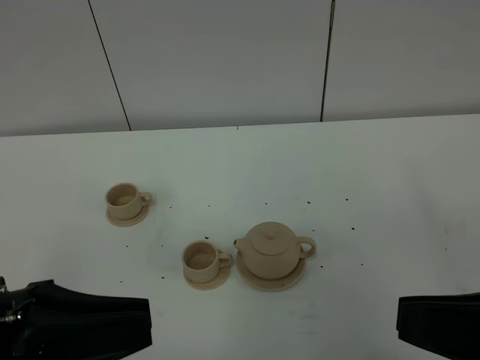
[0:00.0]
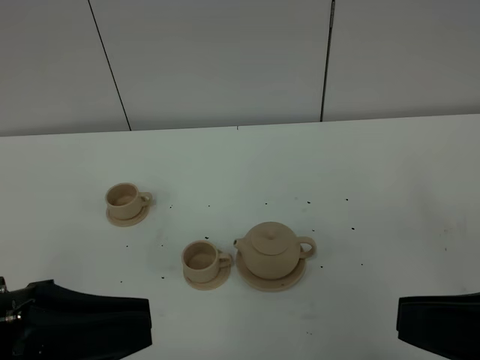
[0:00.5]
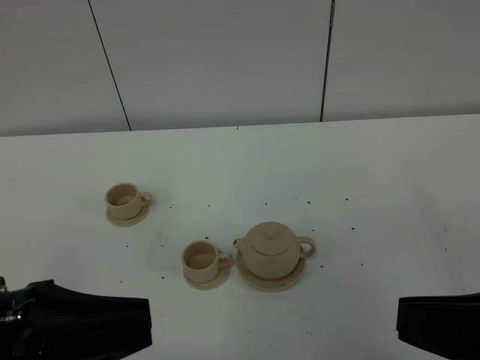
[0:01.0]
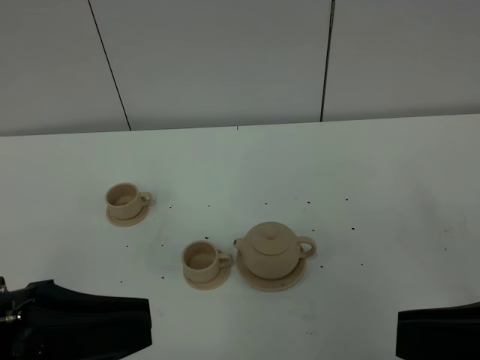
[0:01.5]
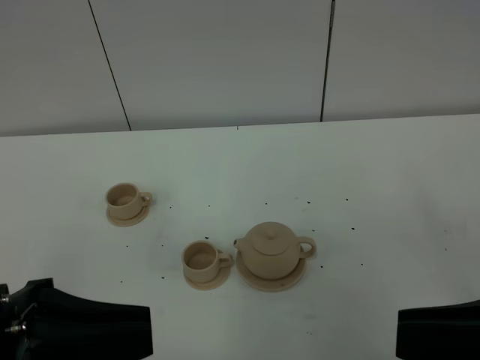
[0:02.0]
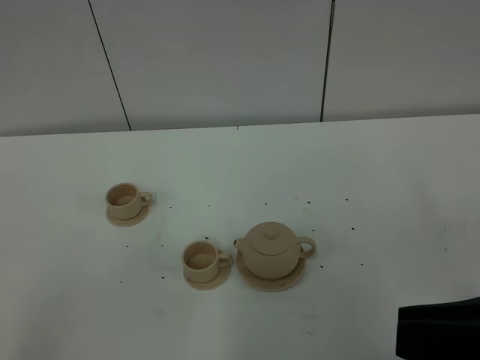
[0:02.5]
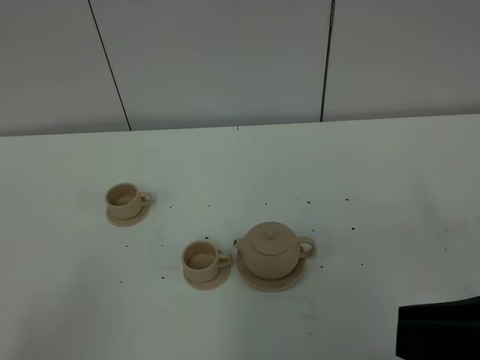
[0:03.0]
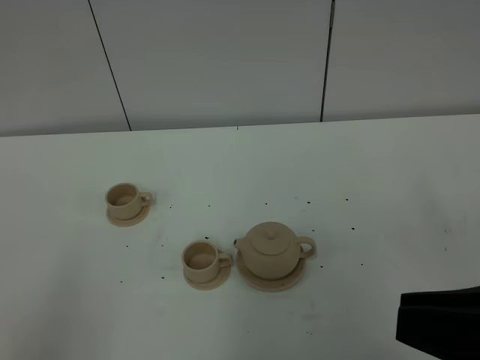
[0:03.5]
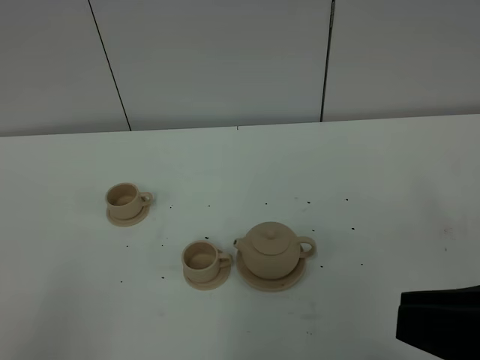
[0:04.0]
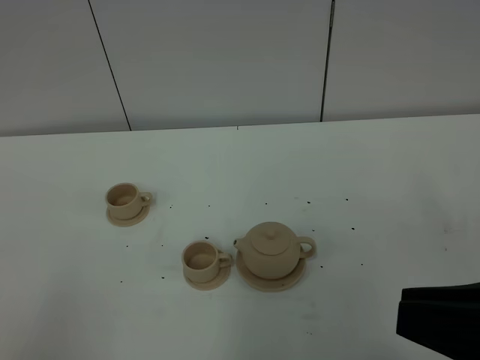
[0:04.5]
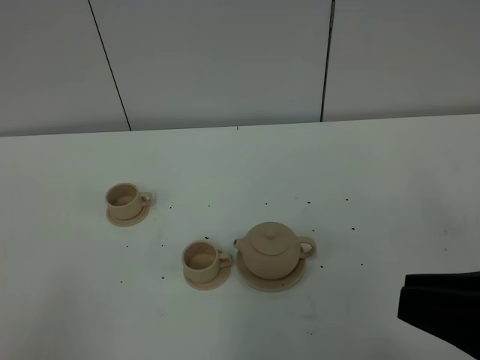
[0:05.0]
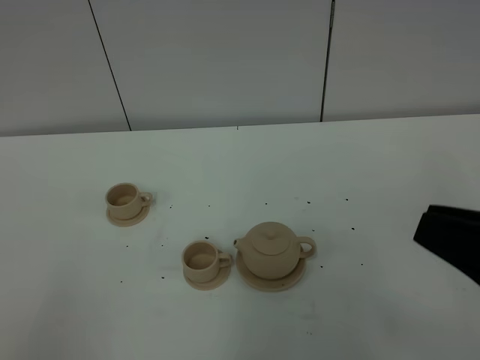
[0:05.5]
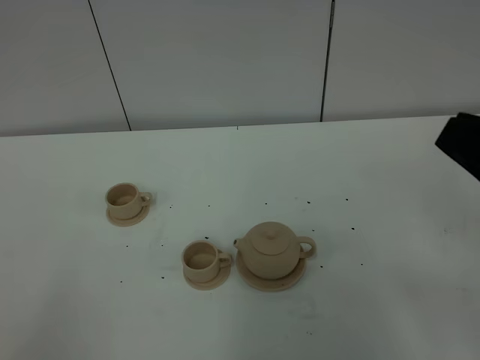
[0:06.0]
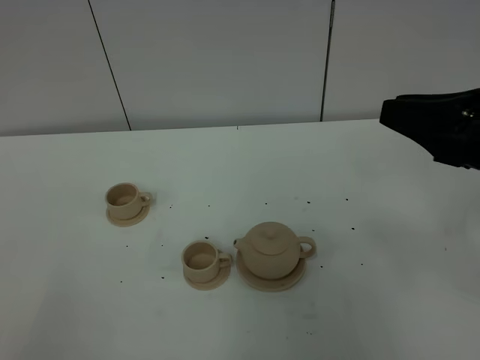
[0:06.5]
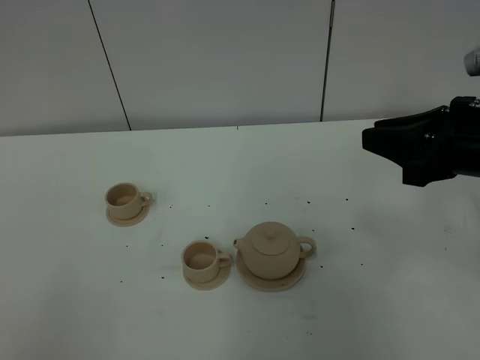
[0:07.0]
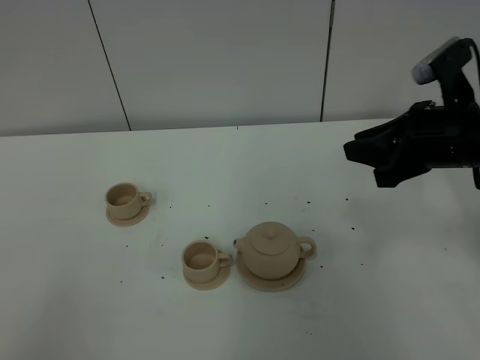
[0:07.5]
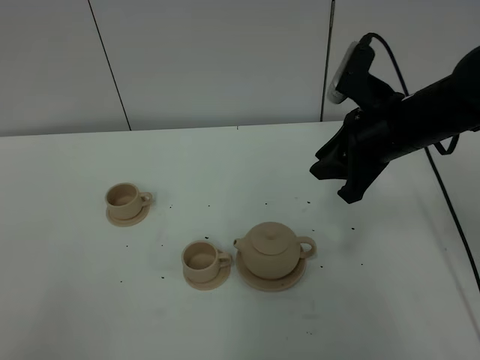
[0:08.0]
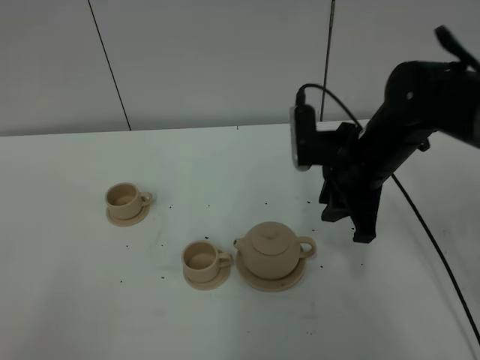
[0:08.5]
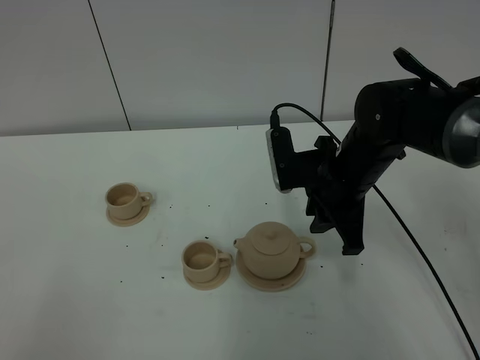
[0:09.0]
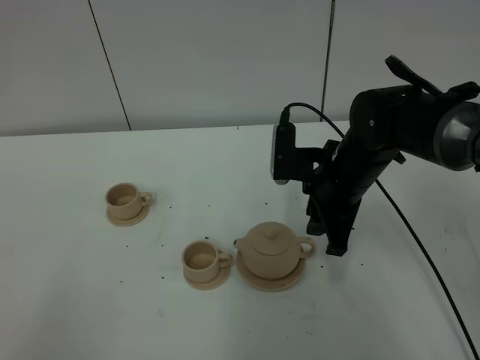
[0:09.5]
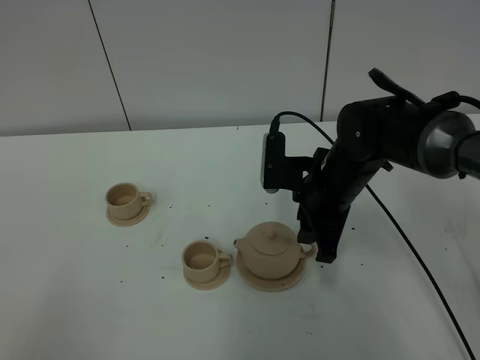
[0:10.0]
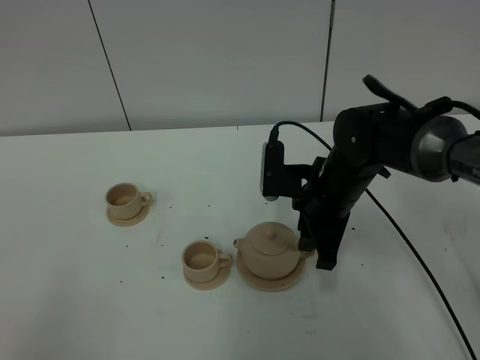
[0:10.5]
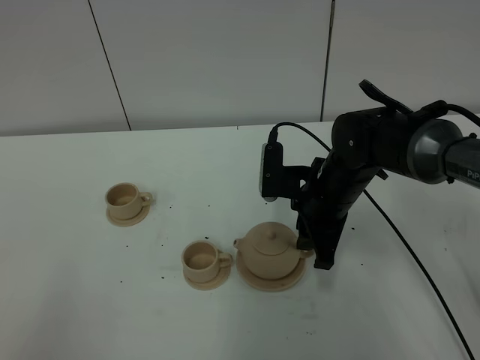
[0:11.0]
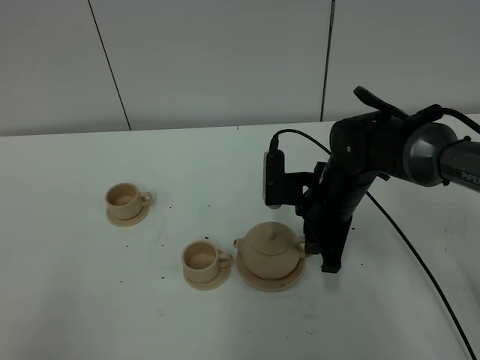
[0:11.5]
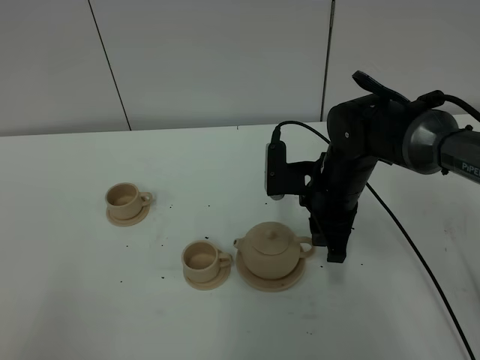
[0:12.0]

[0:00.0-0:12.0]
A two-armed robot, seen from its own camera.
Task of the whole recording: grasp the brown teapot and pour the tea into the two brown teacups one by one, put the brown teapot back in its original place.
0:00.0 to 0:02.0: The grippers stay close to where they were, moving slightly.
0:02.0 to 0:04.0: The left gripper travels backward and to the left by approximately 15 cm.
0:04.0 to 0:06.0: The right gripper heads forward, covering roughly 5 cm.
0:06.0 to 0:08.0: The right gripper moves forward and downward, about 25 cm.
0:08.0 to 0:10.0: The right gripper shifts roughly 10 cm downward and to the left.
0:10.0 to 0:12.0: The grippers move only a little.

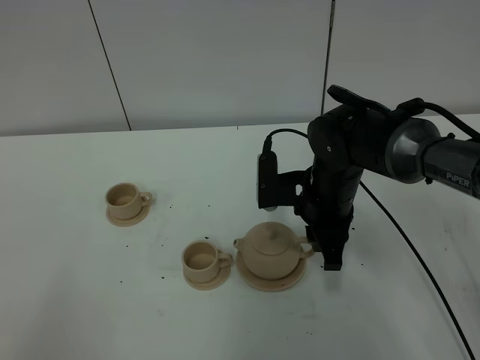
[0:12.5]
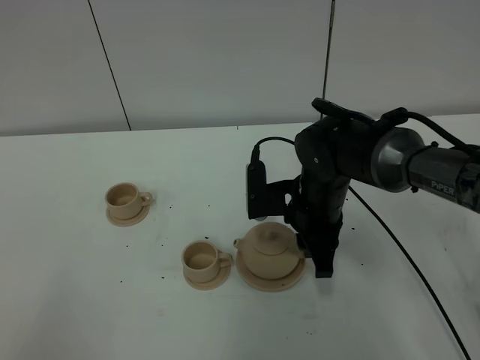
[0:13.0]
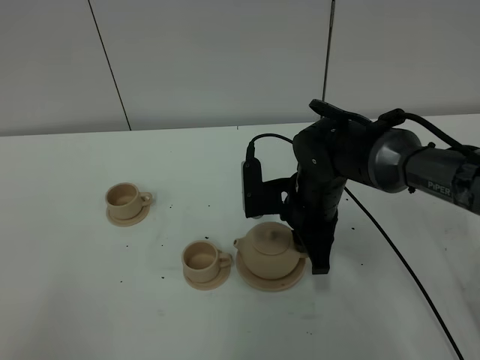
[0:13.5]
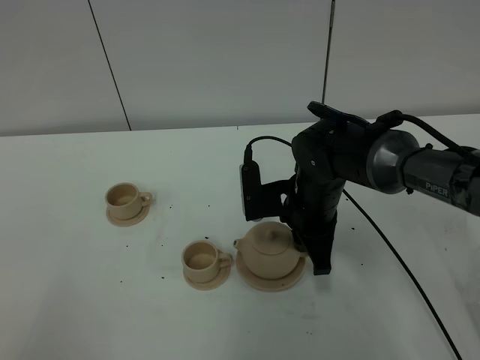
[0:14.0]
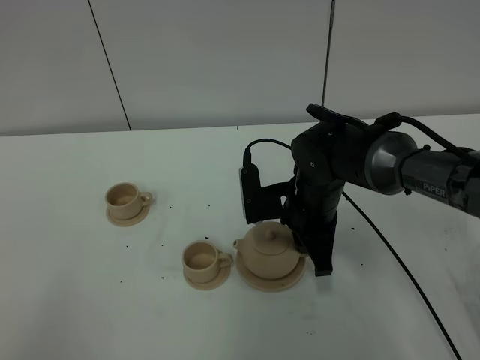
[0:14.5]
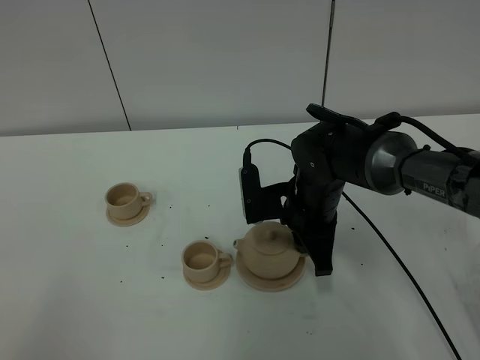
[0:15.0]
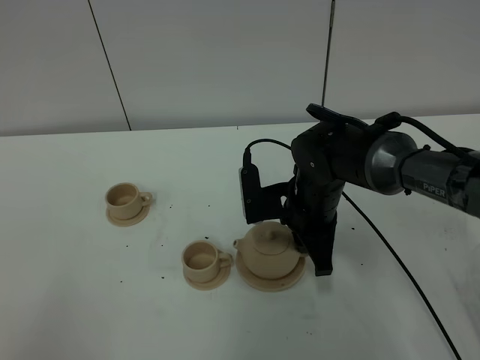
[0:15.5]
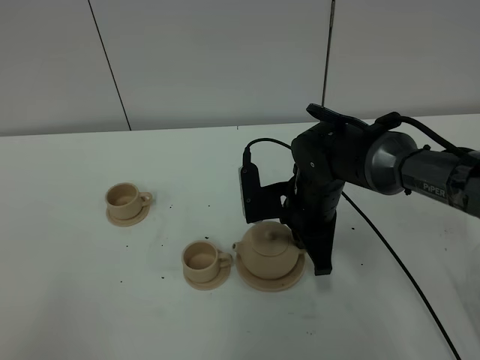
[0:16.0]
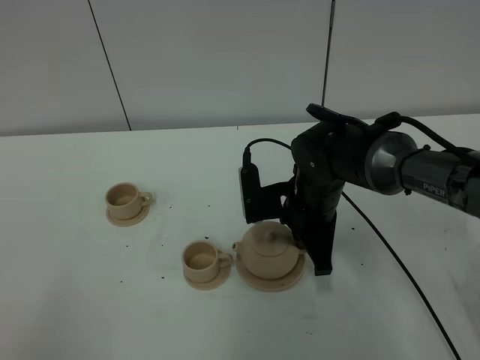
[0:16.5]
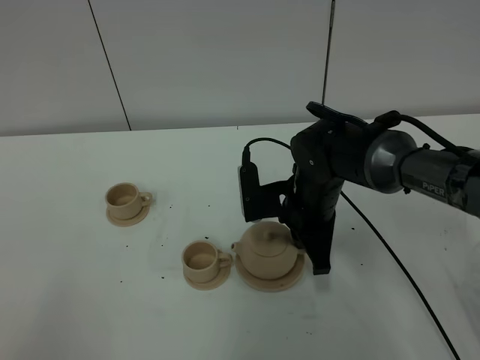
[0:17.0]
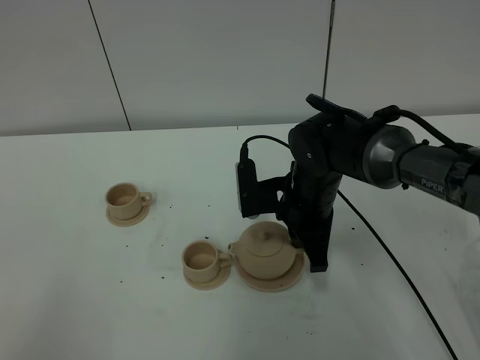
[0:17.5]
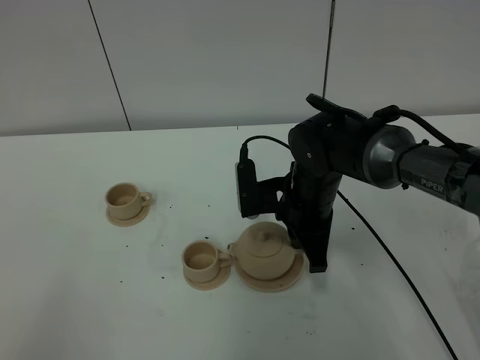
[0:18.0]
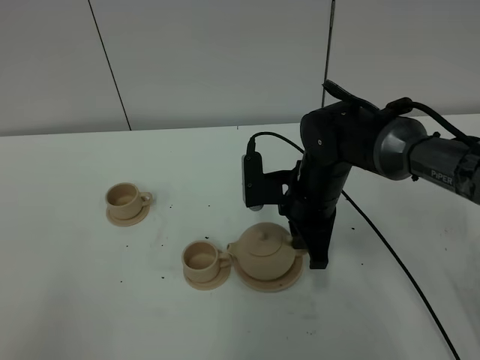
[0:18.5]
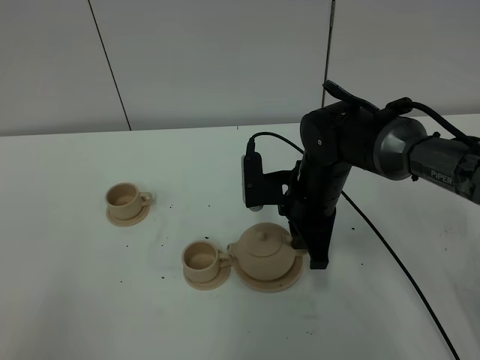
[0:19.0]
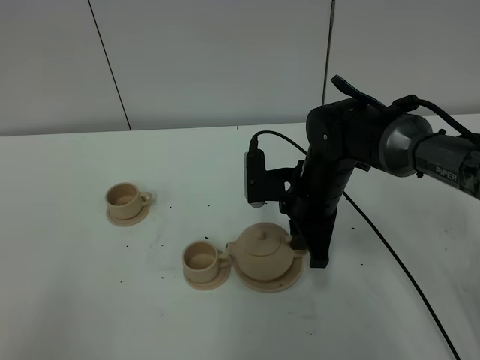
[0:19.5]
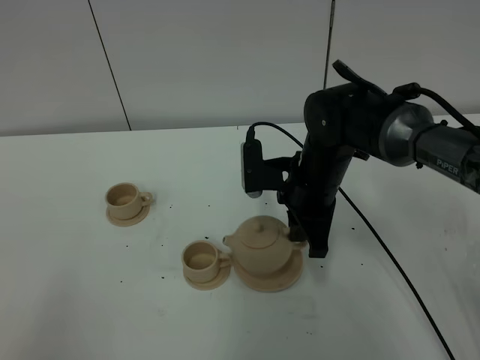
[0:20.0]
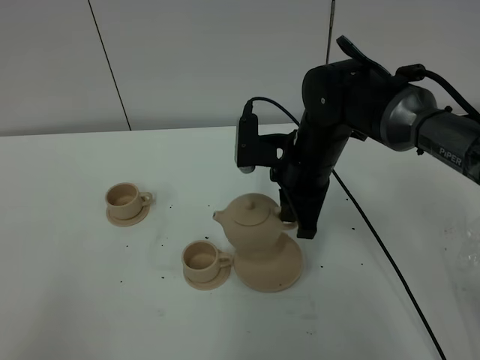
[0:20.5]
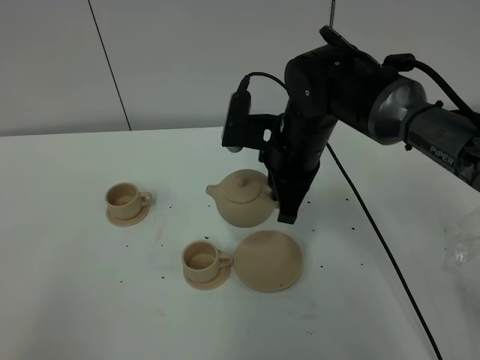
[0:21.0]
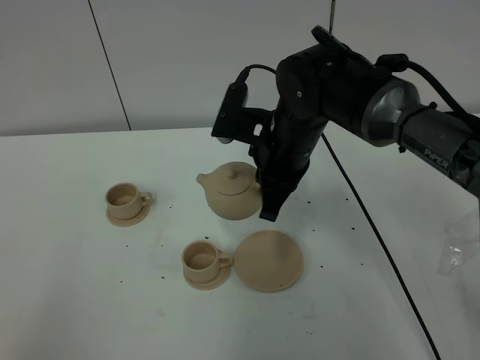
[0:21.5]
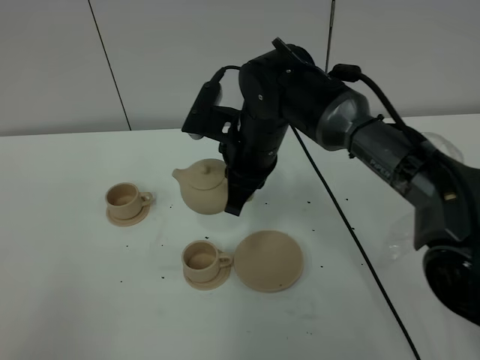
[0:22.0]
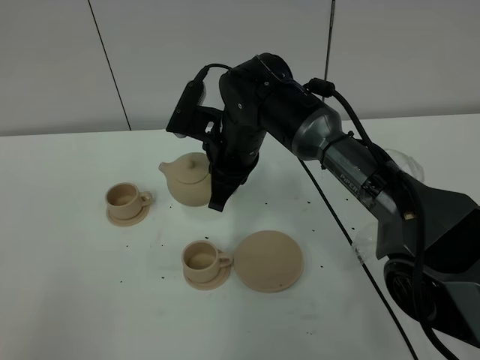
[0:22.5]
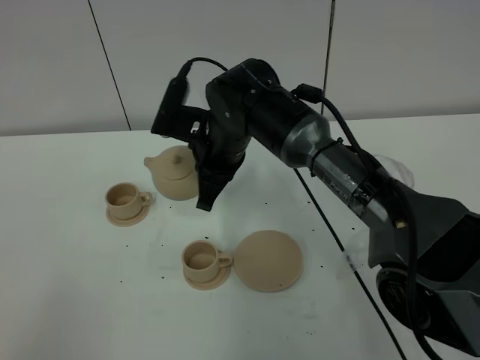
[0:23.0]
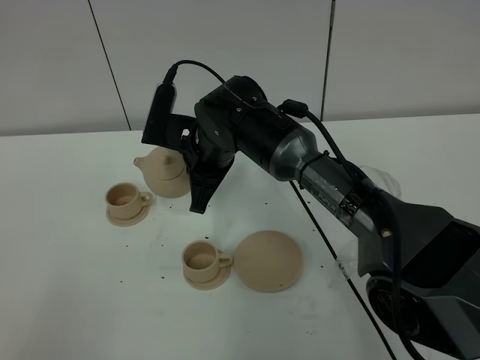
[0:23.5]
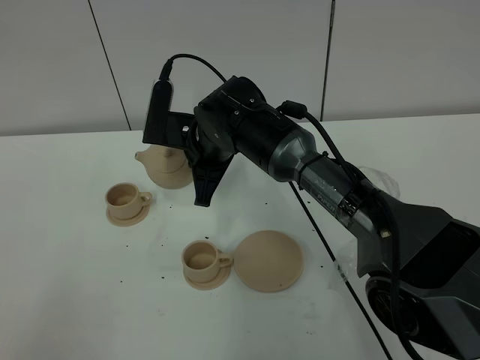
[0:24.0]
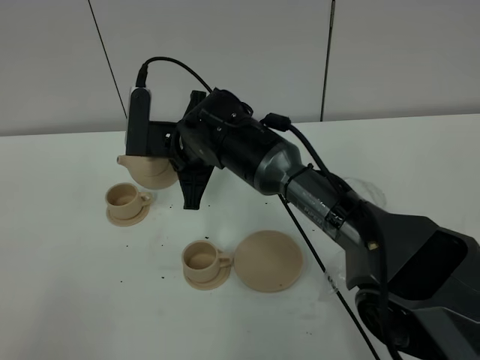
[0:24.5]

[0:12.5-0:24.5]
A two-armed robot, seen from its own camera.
Task of the whole recording: grasp the brown teapot and pour the tea into the two brown teacups one by one, put the brown teapot back in its original place.
Step, 0:12.5 to 0:20.0: Pick up the teapot with the right gripper.
0:12.5 to 0:14.5: There are only small adjustments of the grippers.
0:16.5 to 0:20.5: The grippers make only small movements.
0:20.5 to 0:22.5: The right gripper heads to the left, covering some 10 cm.
0:22.5 to 0:24.5: The right gripper moves to the left, about 5 cm.

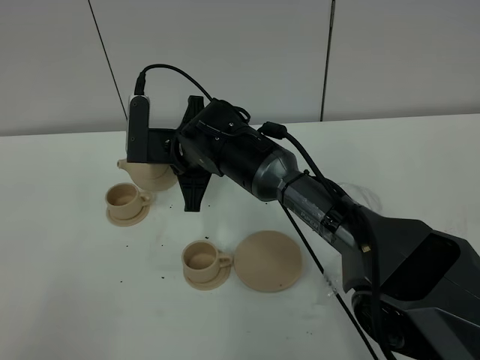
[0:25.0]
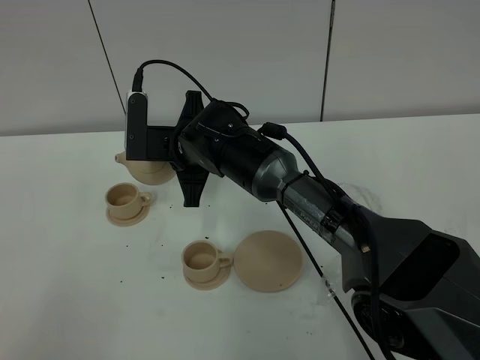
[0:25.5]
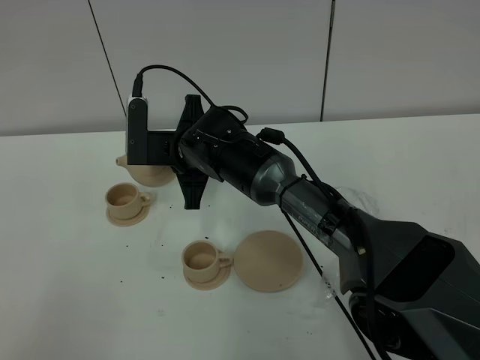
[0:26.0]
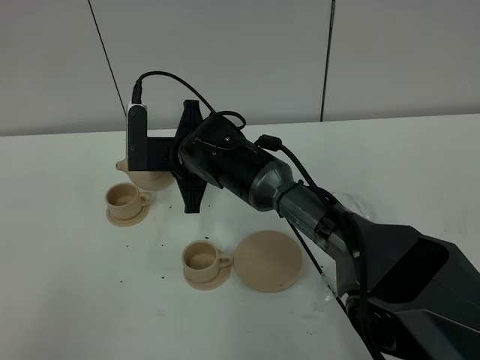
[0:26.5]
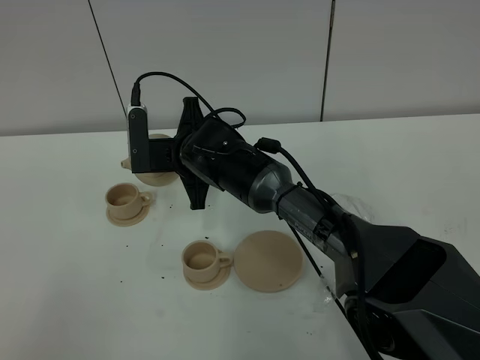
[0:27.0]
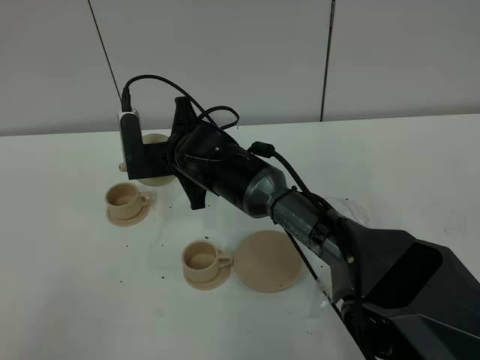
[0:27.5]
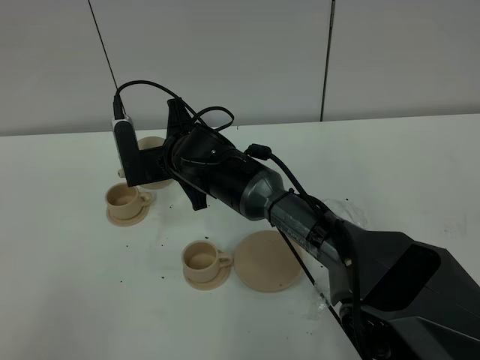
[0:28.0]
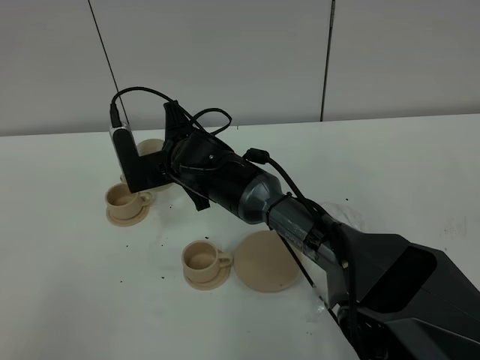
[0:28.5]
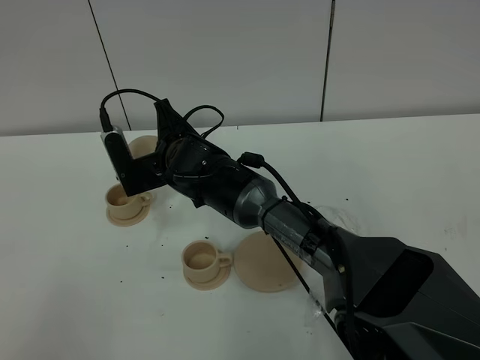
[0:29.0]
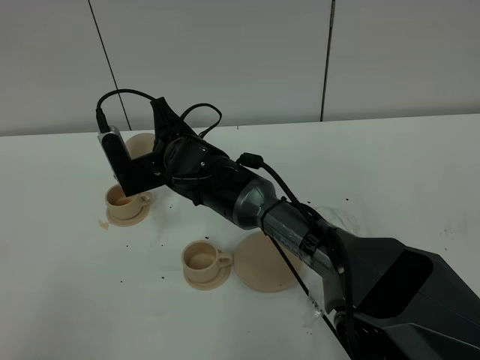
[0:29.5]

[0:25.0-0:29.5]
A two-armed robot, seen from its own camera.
Task of the whole recording: grasp the brown teapot and pour the tea into the two brown teacups one by one, put the brown teapot back in its original place.
0:25.0 to 0:27.0: The grippers make only small movements.
